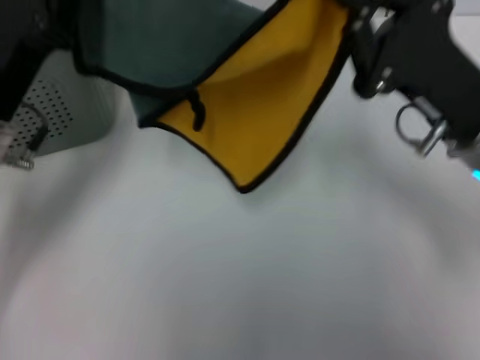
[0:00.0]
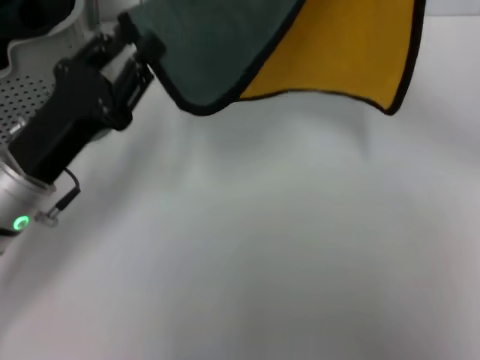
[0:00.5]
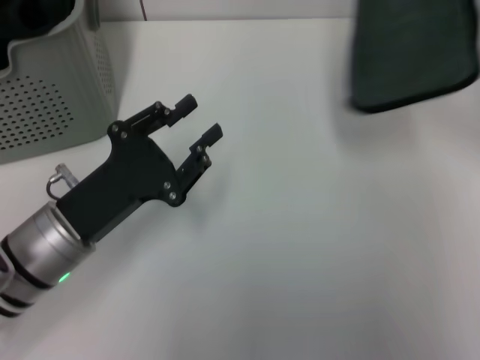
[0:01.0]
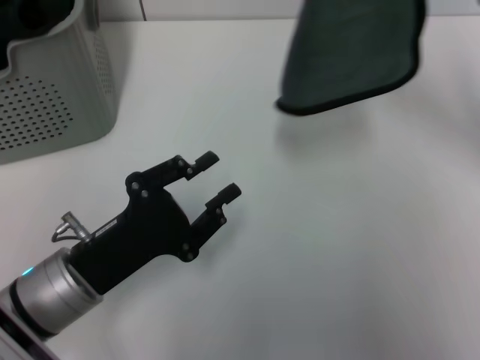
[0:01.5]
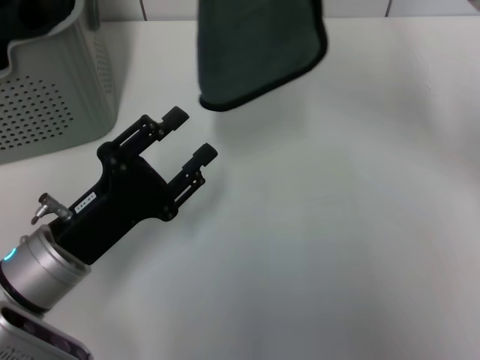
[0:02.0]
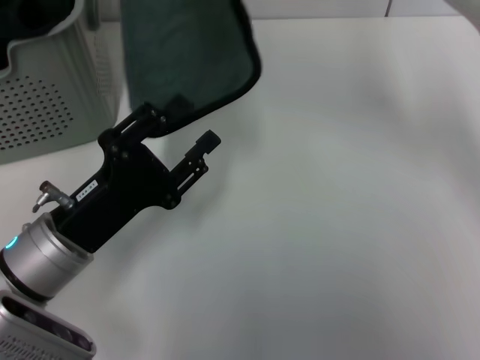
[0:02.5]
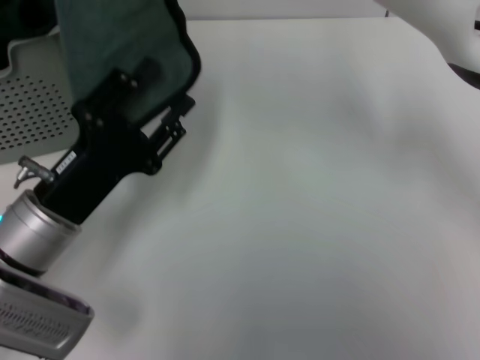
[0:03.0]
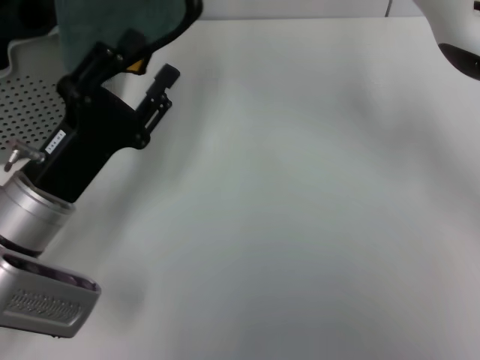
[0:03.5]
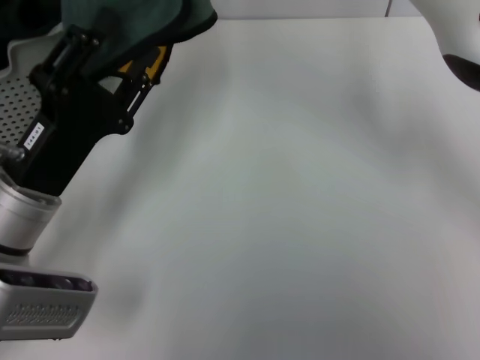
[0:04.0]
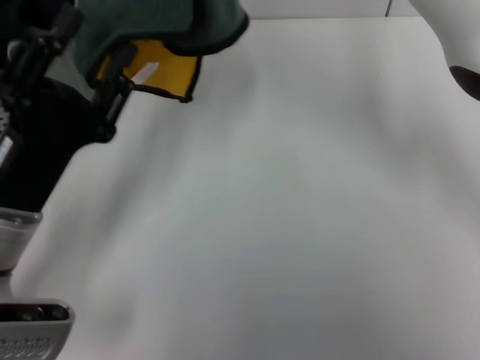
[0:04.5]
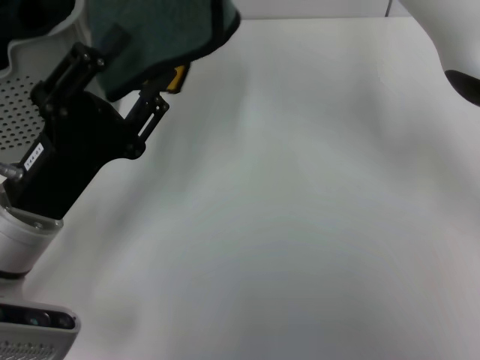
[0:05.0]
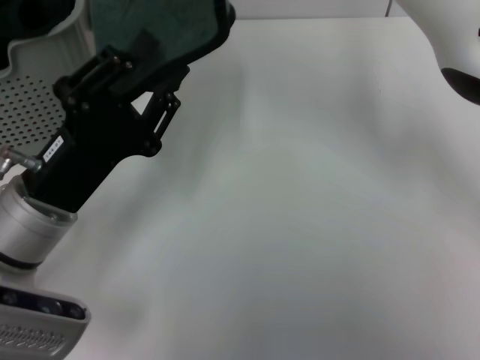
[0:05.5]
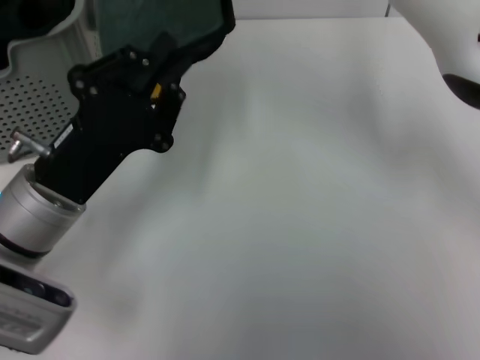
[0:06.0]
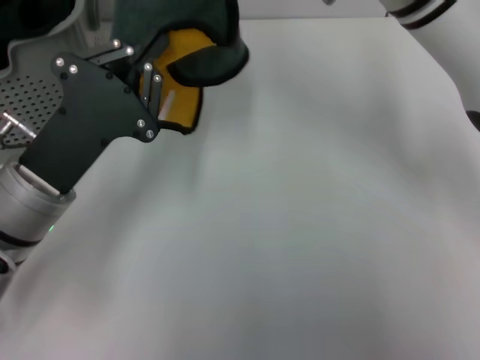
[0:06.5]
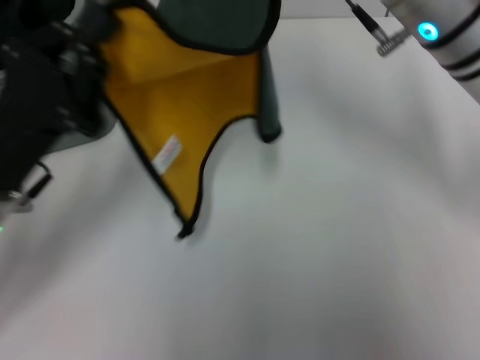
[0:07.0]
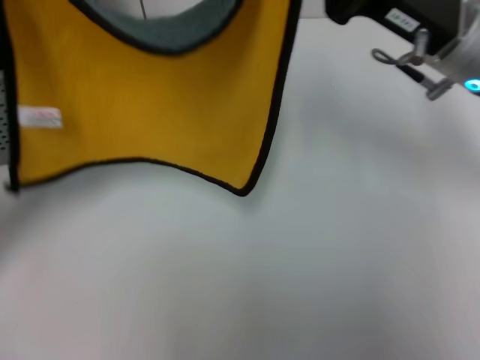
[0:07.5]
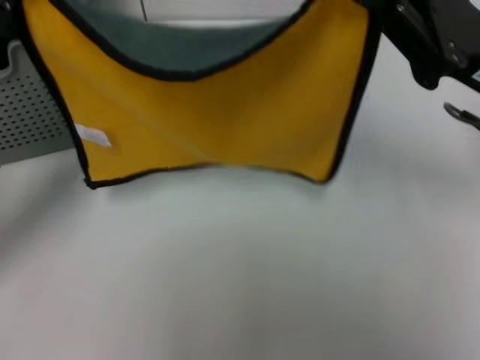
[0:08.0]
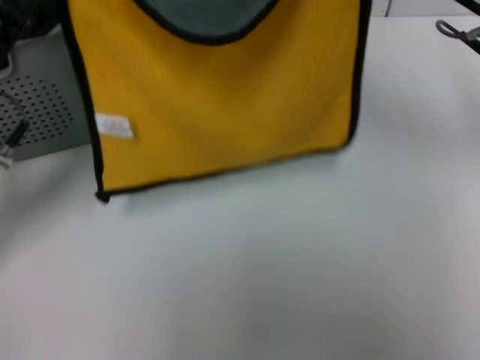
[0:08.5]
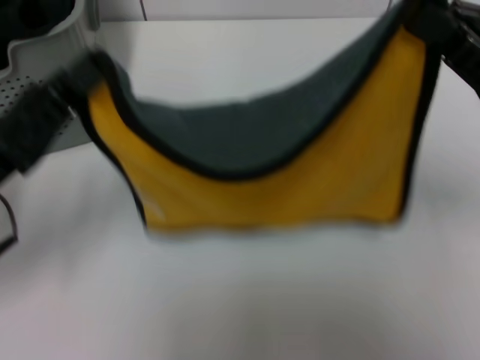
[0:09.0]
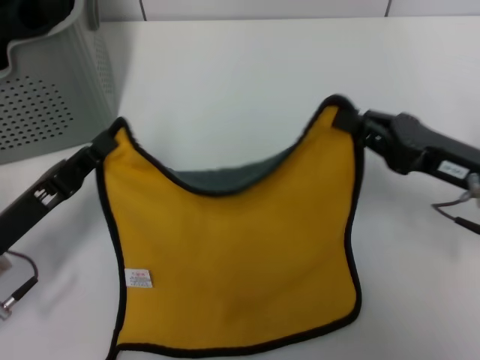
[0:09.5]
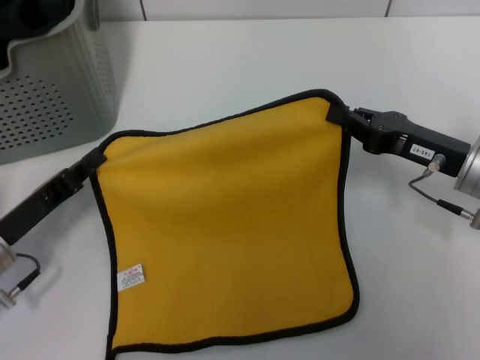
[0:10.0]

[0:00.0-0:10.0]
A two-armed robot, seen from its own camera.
Task of the whole recording: pick up the towel from the storage box and lay it flat on the table.
0:00.0 to 0:02.0: The left gripper travels downward and backward by some 10 cm, and opens its fingers, while the right gripper is displaced upward, forward and to the left by some 15 cm.
0:02.0 to 0:04.0: The right gripper is displaced to the left by about 5 cm.
0:06.0 to 0:08.0: The right gripper goes some 20 cm to the right and downward. Meanwhile the left gripper shifts roughly 10 cm to the left, and closes up.
0:08.0 to 0:10.0: Both grippers move downward, some 10 cm.

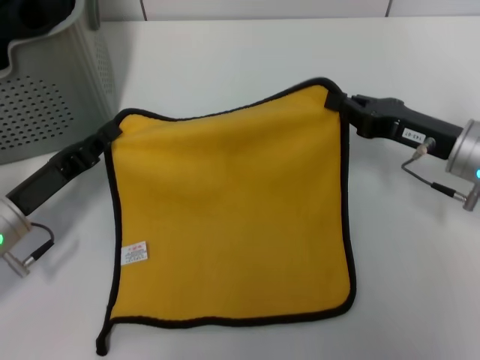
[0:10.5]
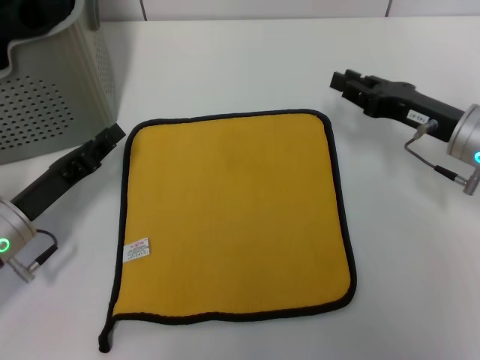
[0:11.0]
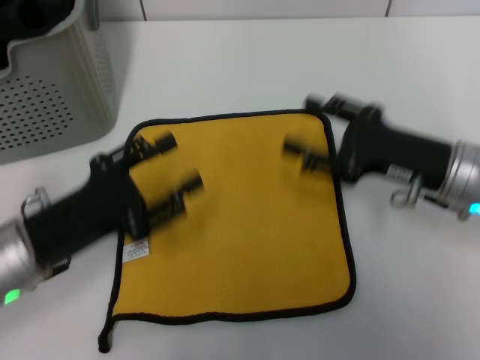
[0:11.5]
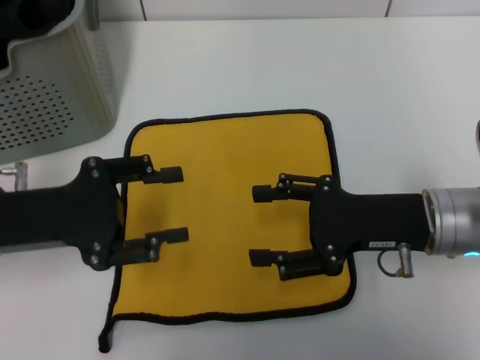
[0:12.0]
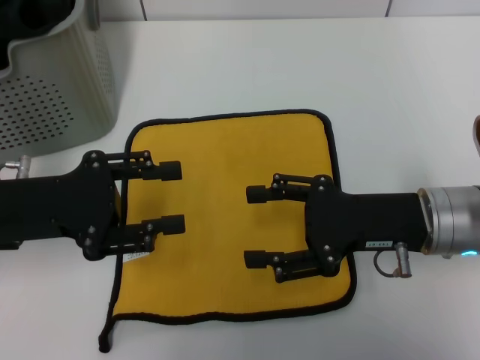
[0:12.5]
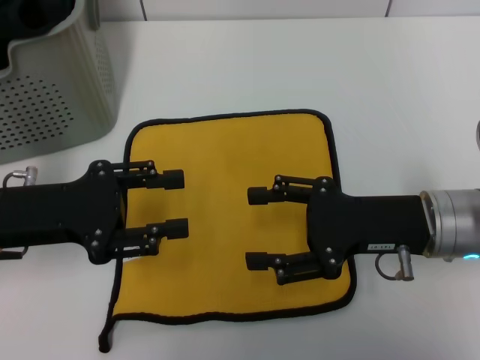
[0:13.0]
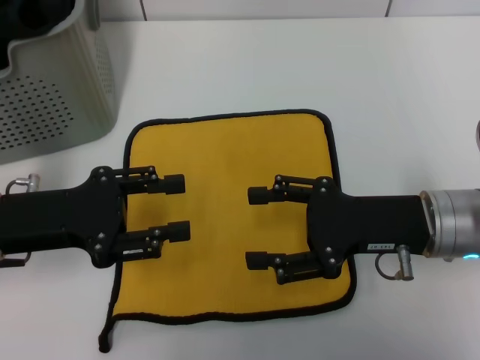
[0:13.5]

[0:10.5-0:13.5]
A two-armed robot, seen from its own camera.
Task of the whole recording: pick up the towel from the storage box and lay it flat on the table.
0:10.5 to 0:12.0: The left gripper is displaced upward by about 10 cm, and opens up; the right gripper travels backward by roughly 5 cm, and opens up.
